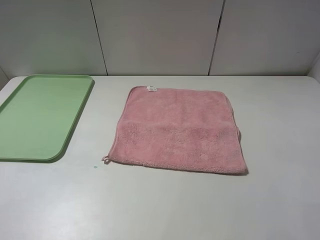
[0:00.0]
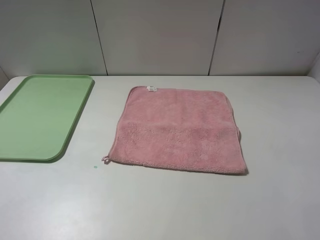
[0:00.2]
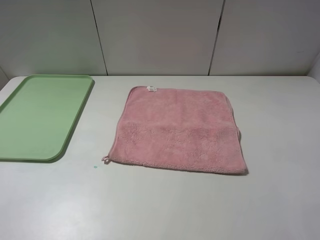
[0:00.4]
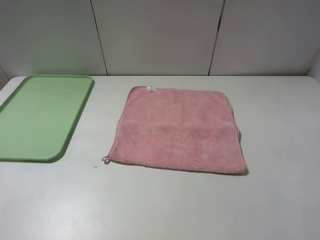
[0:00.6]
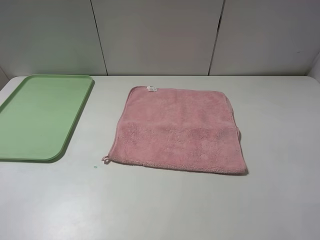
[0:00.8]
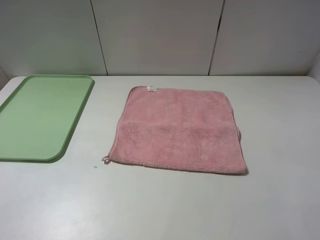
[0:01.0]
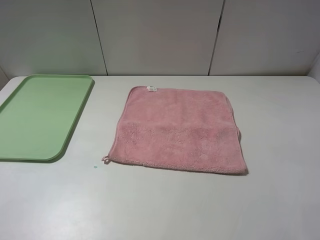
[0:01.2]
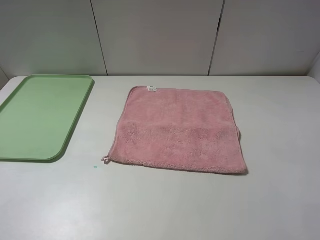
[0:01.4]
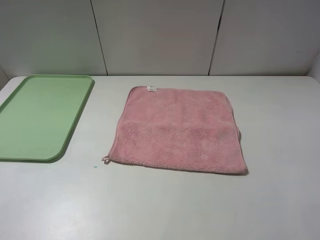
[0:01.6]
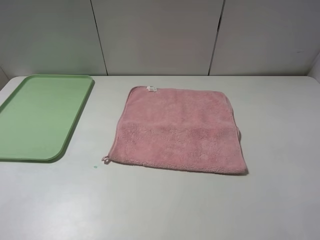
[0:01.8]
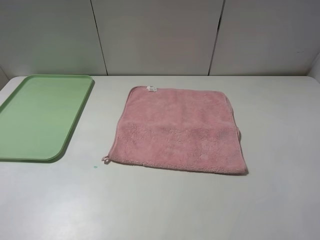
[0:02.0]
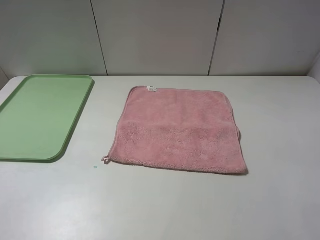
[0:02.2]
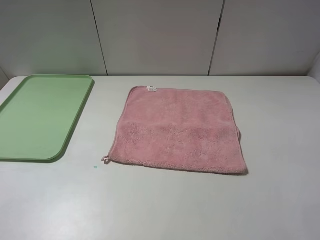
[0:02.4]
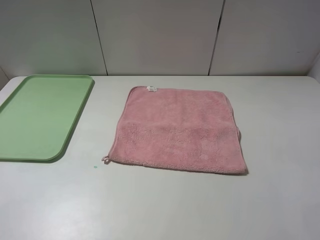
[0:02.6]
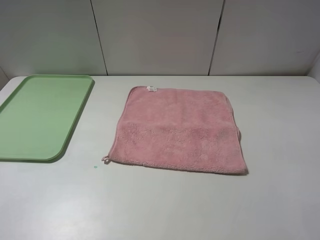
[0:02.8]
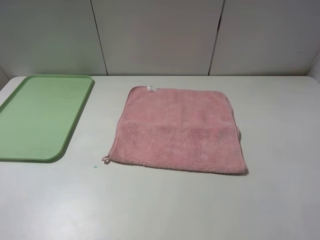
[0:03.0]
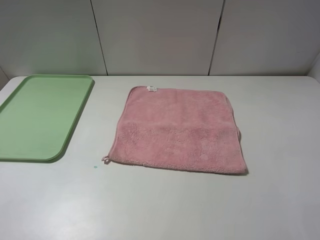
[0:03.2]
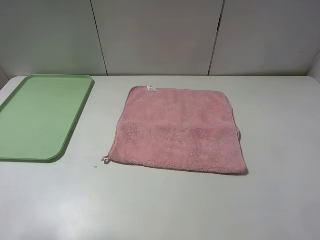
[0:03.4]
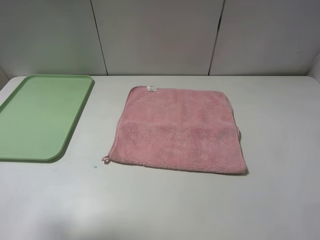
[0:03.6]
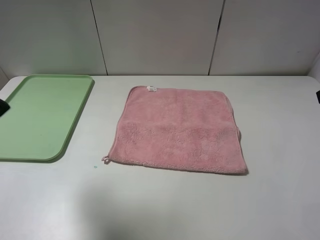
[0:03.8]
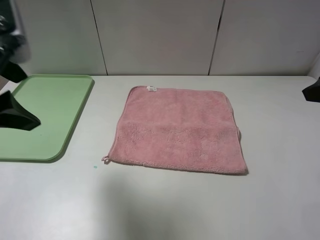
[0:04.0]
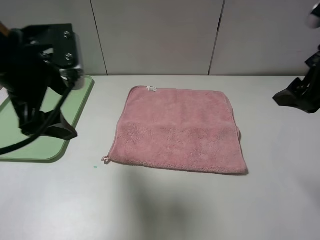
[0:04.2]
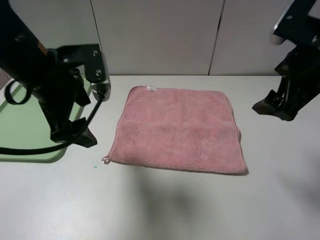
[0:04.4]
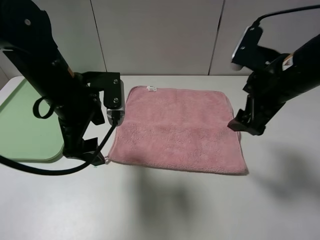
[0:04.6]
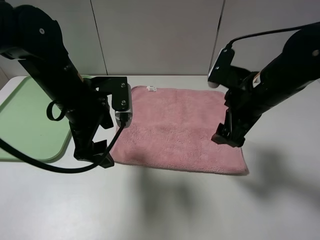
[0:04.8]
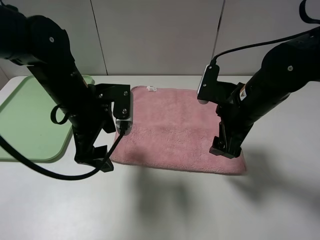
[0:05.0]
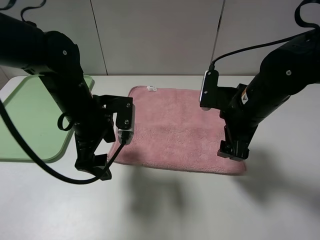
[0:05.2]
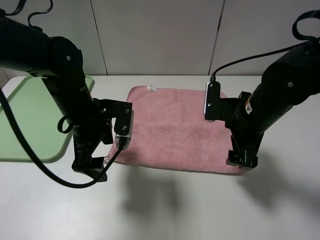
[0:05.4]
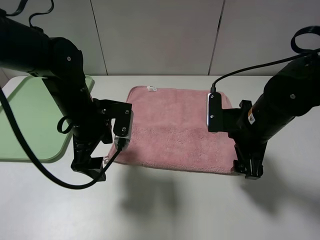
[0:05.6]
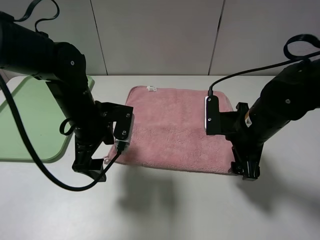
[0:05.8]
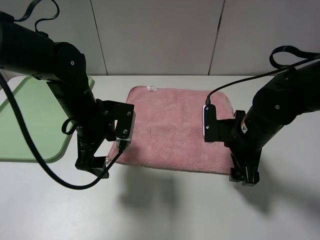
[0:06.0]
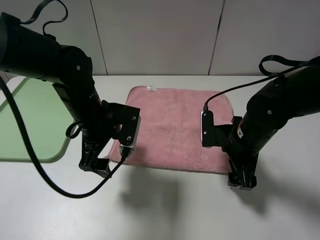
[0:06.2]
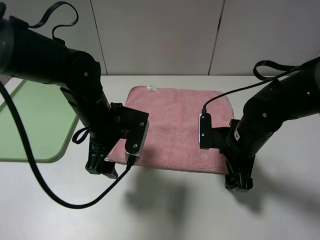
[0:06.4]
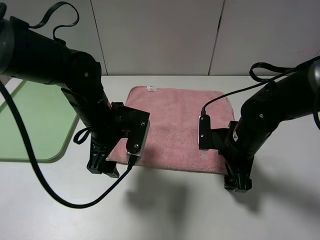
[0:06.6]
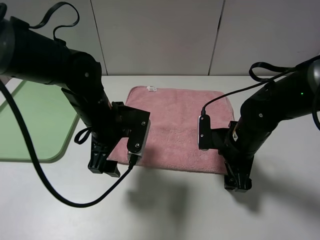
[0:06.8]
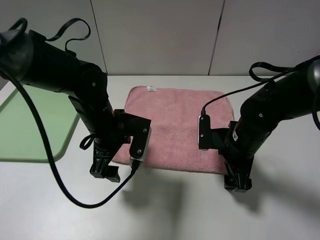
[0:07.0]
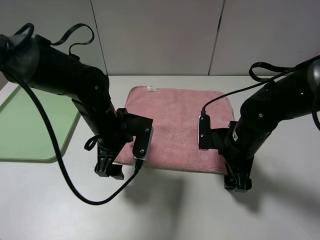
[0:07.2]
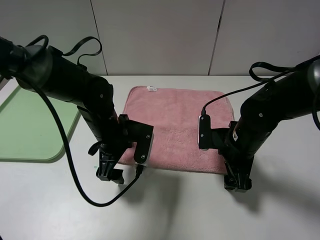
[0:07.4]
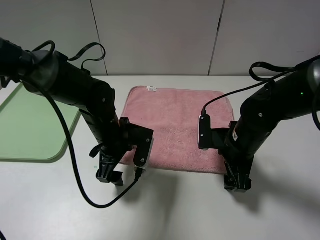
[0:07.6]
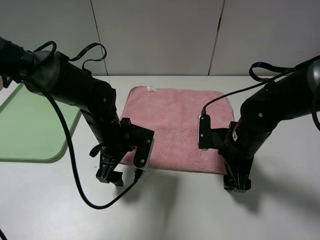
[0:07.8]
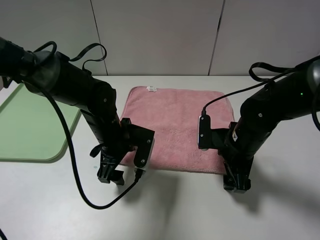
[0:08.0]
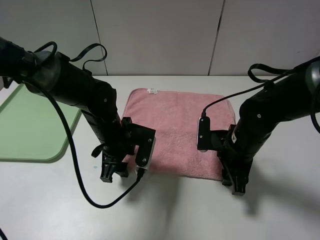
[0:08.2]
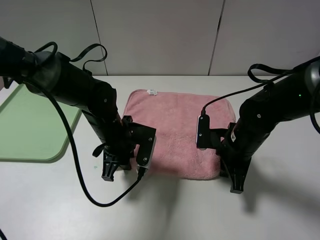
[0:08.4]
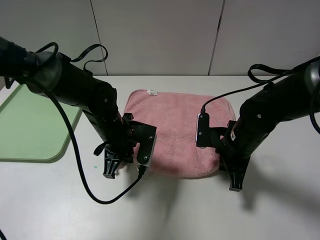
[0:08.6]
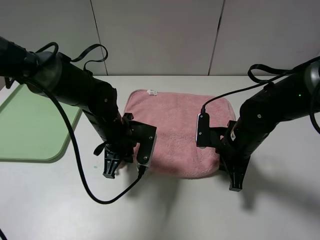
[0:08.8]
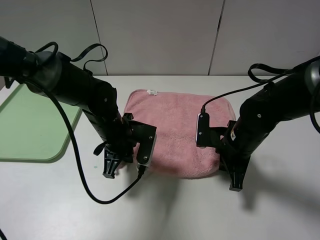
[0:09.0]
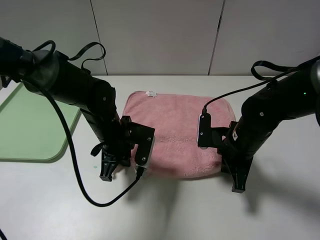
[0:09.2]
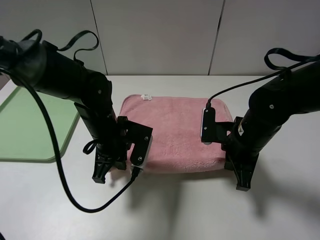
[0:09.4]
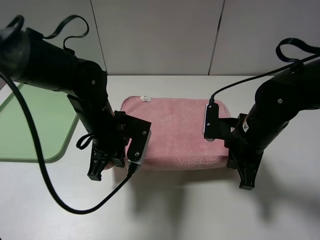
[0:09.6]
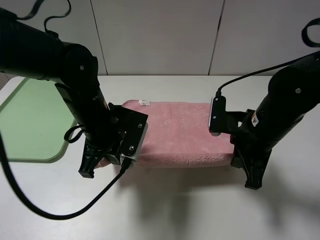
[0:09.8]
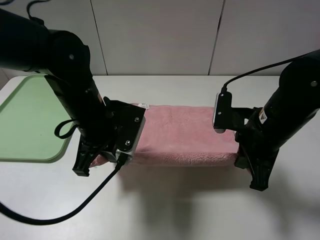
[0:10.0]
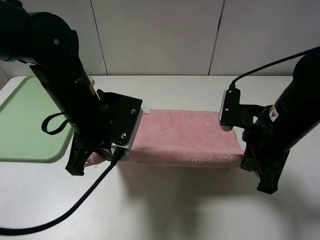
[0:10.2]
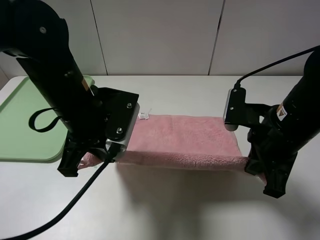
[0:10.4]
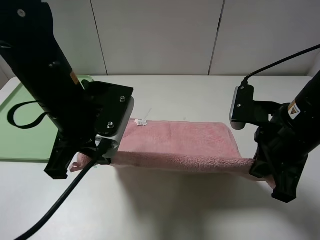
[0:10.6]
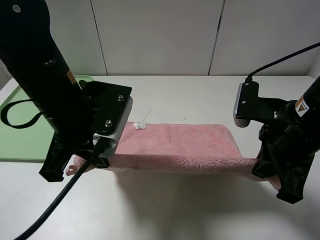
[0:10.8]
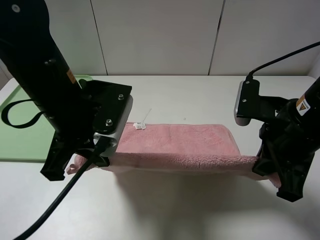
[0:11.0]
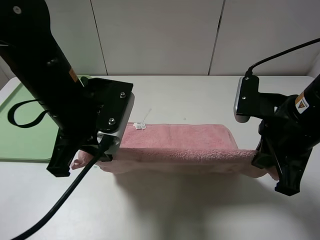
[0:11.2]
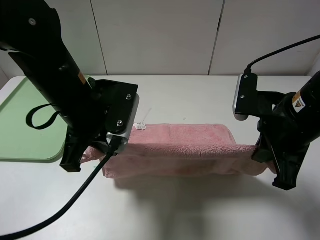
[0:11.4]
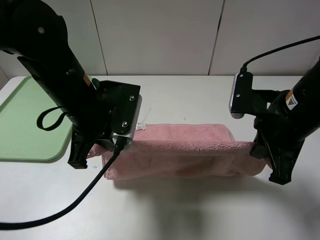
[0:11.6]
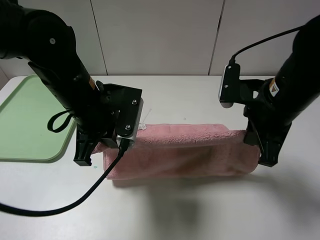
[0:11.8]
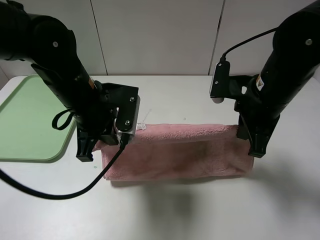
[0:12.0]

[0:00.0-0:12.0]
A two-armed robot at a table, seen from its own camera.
0:00.0 to 0:01.6: Both grippers stay about where they are.
0:03.0 to 0:04.4: The right gripper heads forward, covering some 20 cm. The left gripper goes about 30 cm forward and to the right.
0:04.4 to 0:06.0: The right gripper moves downward, some 15 cm. Meanwhile the left gripper goes some 10 cm downward.
0:06.0 to 0:07.6: The left gripper moves downward, approximately 5 cm.
0:07.6 to 0:09.0: The left gripper closes its fingers. The right gripper closes up.
0:09.0 to 0:10.4: Both grippers move upward and backward, approximately 15 cm.
0:10.4 to 0:12.0: The right gripper is displaced forward by some 5 cm.

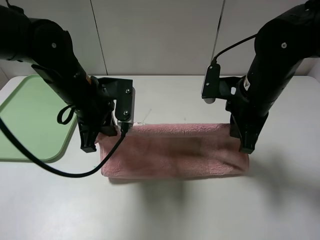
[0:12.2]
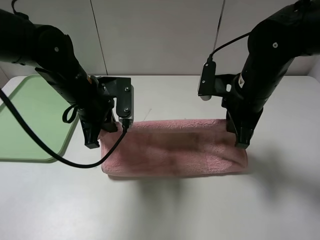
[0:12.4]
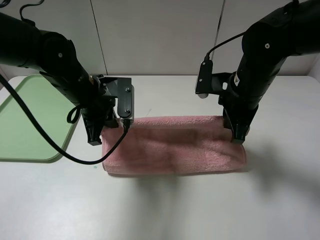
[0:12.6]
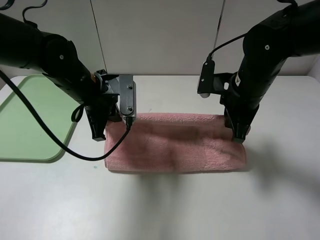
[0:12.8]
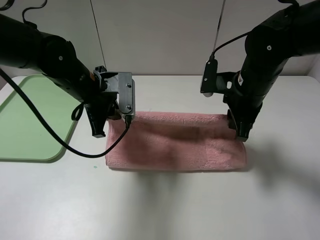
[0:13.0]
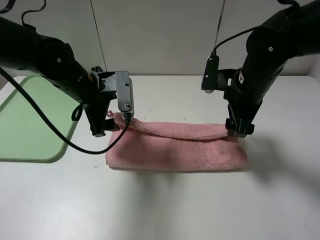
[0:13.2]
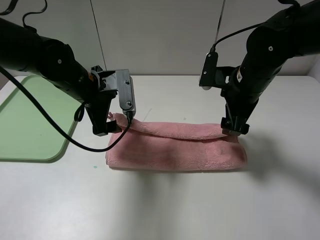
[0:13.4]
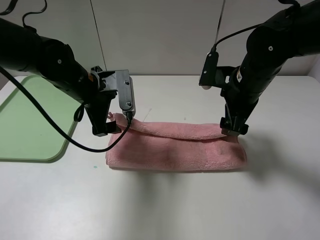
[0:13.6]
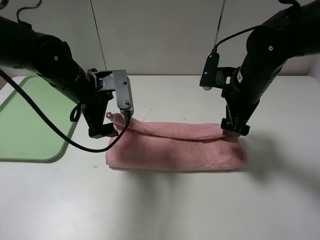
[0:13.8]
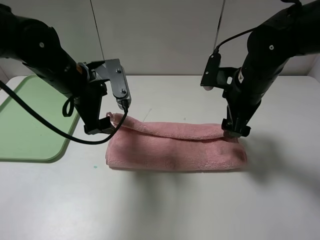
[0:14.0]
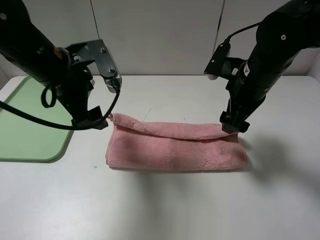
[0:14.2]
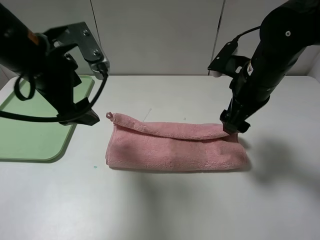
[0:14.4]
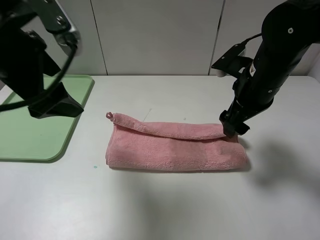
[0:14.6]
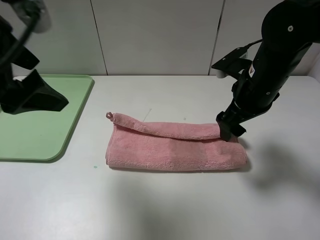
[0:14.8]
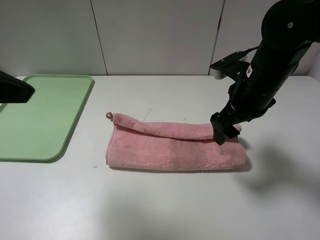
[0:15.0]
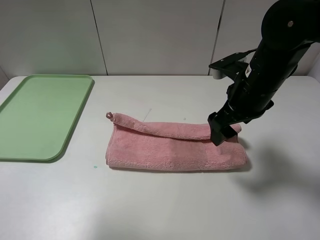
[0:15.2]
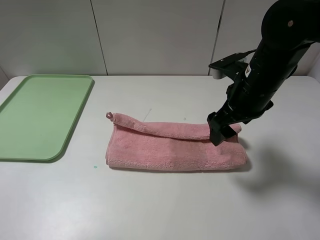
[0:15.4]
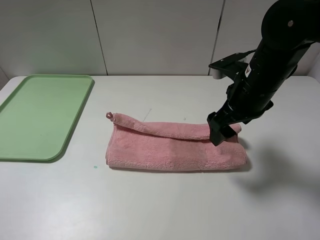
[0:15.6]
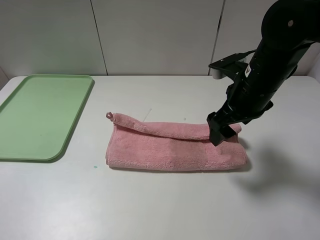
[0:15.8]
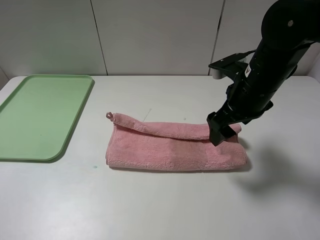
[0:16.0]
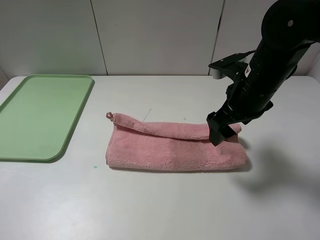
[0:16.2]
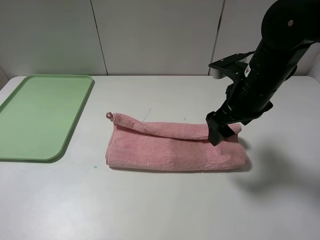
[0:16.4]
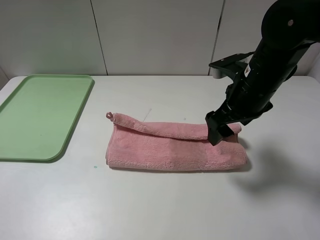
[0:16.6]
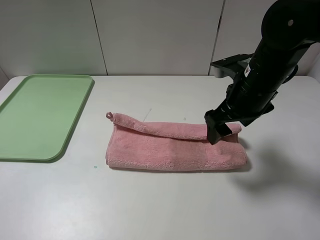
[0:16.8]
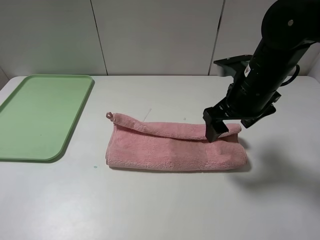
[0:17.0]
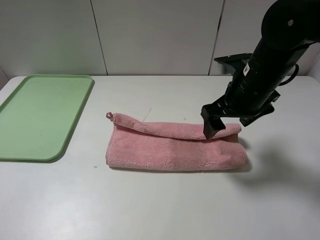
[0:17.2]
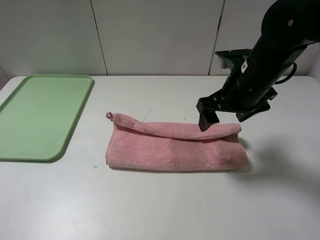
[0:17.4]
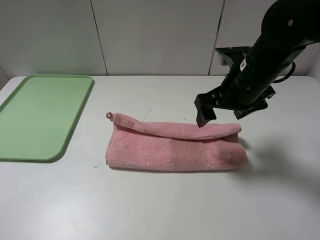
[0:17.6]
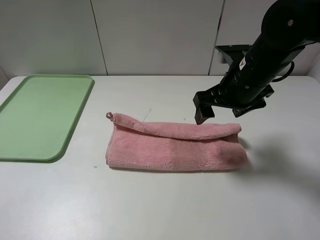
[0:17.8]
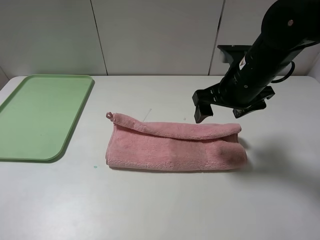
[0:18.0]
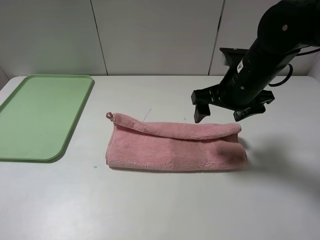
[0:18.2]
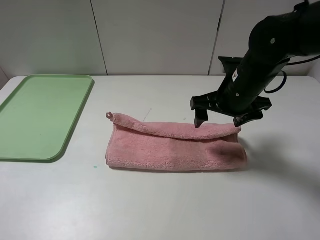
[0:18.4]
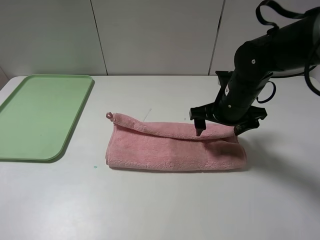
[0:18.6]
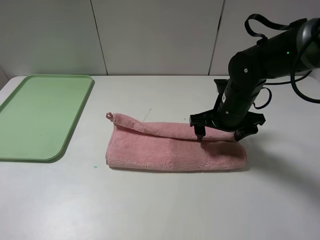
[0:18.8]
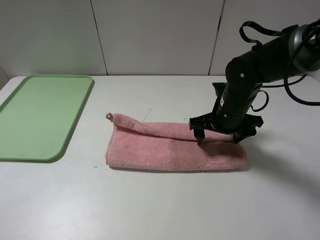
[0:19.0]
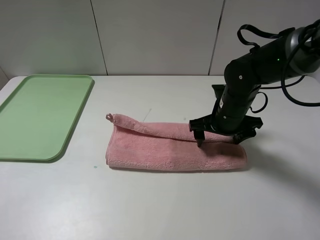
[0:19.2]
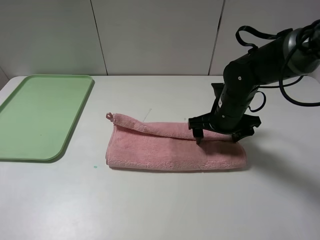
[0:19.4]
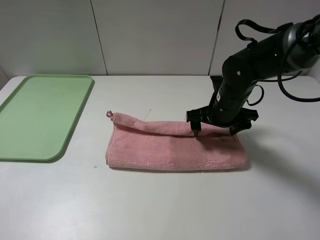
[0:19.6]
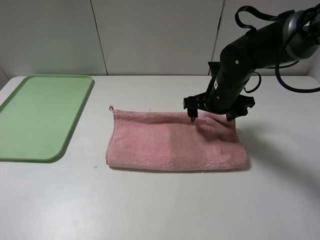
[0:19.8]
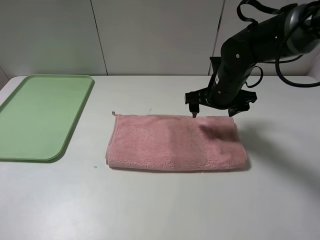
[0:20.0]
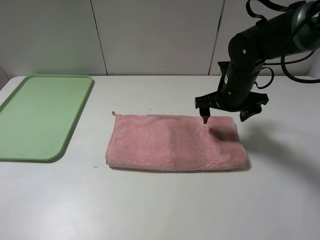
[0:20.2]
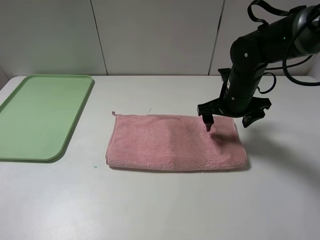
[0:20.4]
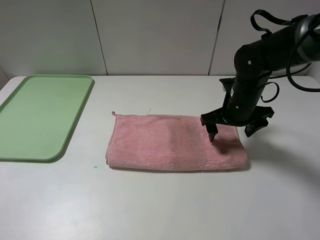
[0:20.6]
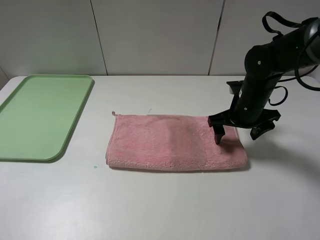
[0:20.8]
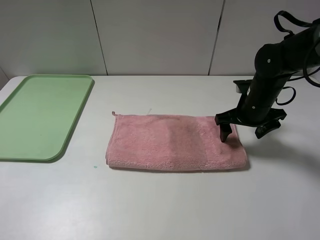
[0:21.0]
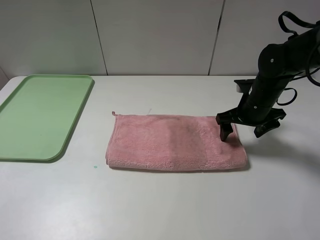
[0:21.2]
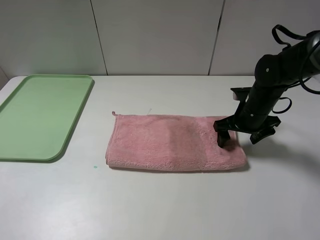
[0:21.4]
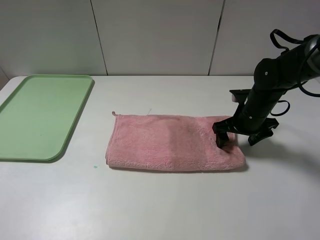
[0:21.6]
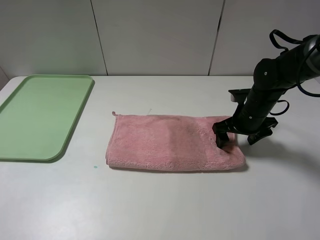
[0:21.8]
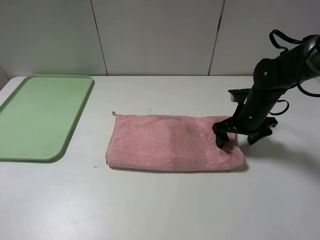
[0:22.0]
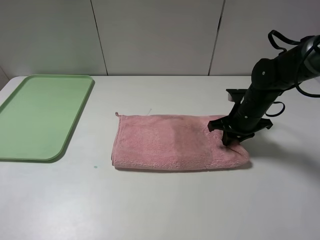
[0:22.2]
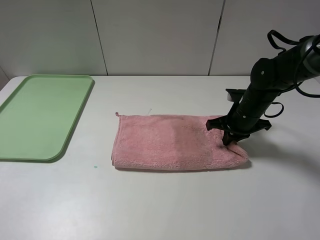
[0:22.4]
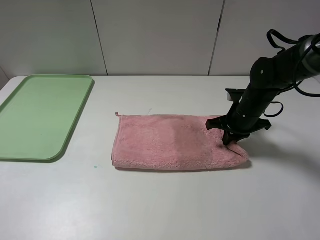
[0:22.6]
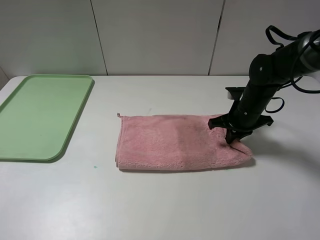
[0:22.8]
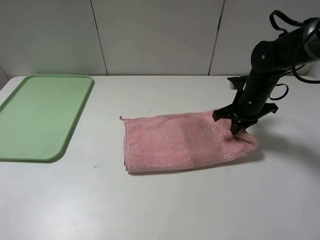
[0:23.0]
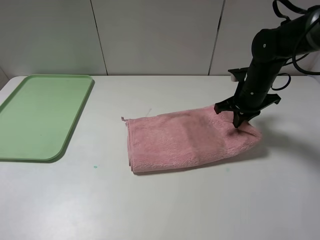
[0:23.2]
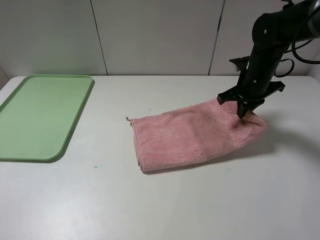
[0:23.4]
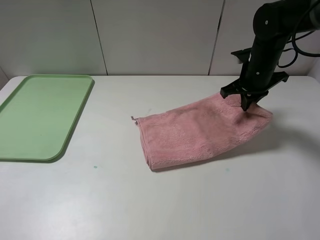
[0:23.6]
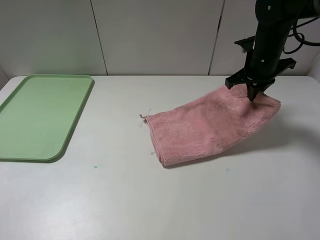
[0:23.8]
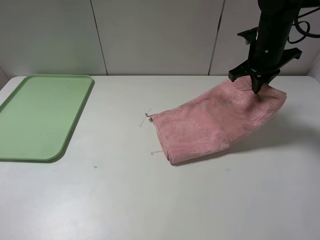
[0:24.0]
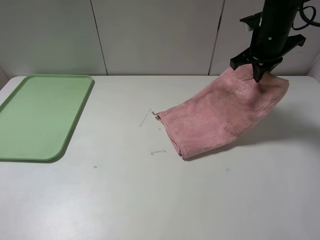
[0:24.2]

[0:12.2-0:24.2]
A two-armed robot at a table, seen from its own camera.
Step, 0:12.2 to 0:20.0: Fold the pink towel upwards.
0:12.2 to 0:13.8: The left gripper opens; the right gripper opens up.
0:13.8 to 0:15.2: The left gripper moves upward, backward and to the left, some 30 cm.
0:15.2 to 0:16.6: The left gripper is displaced downward, backward and to the left by about 15 cm.
0:18.2 to 0:19.8: The right gripper travels downward and forward by roughly 10 cm.
0:19.8 to 0:21.2: The right gripper goes about 10 cm to the right.
0:21.2 to 0:22.6: The right gripper closes.
0:22.6 to 0:24.2: The right gripper heads upward and forward, covering approximately 15 cm.
